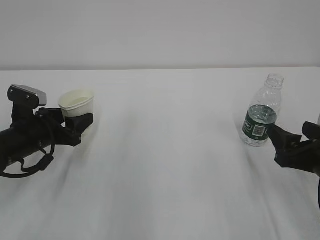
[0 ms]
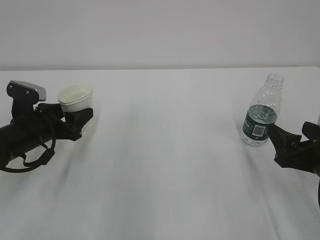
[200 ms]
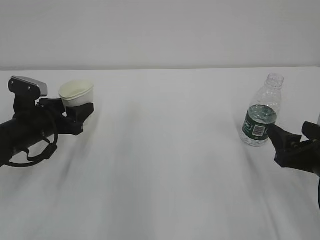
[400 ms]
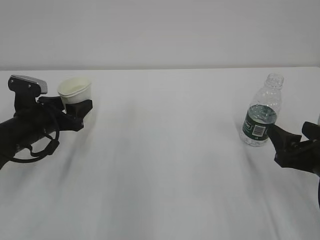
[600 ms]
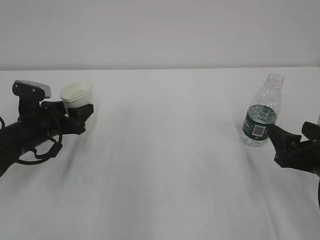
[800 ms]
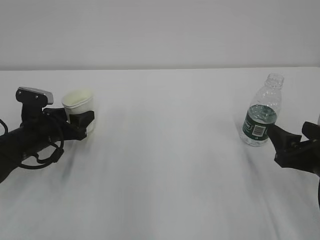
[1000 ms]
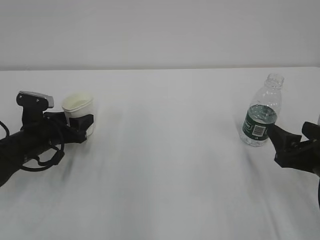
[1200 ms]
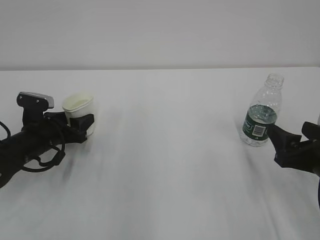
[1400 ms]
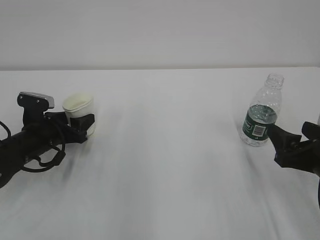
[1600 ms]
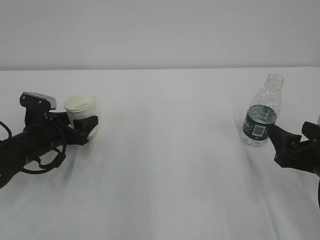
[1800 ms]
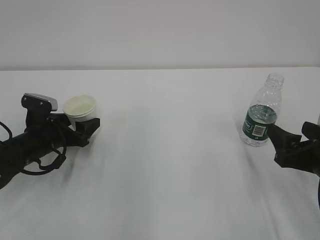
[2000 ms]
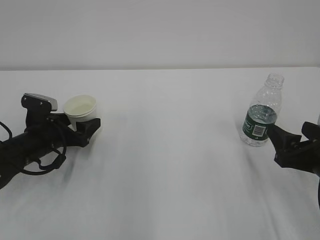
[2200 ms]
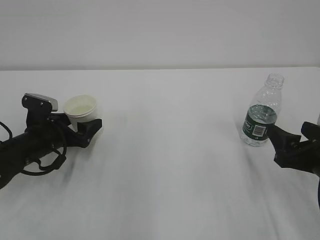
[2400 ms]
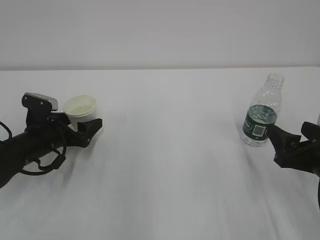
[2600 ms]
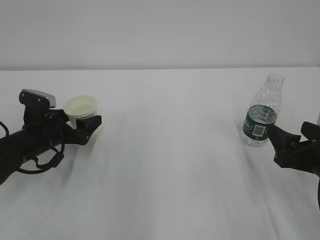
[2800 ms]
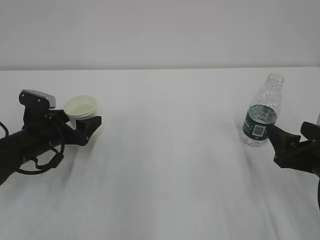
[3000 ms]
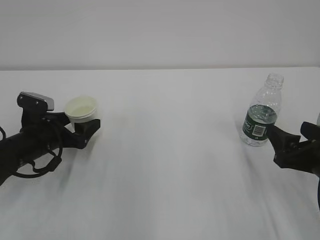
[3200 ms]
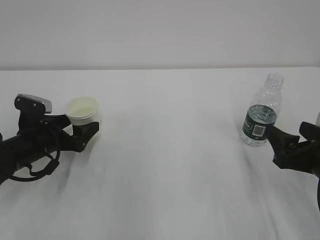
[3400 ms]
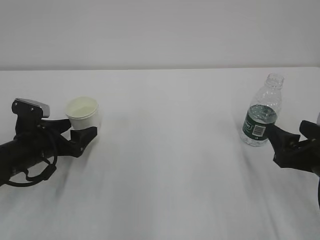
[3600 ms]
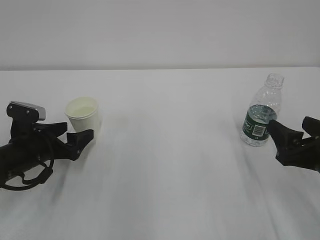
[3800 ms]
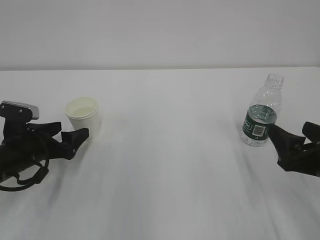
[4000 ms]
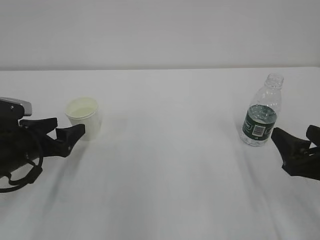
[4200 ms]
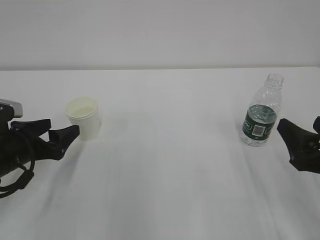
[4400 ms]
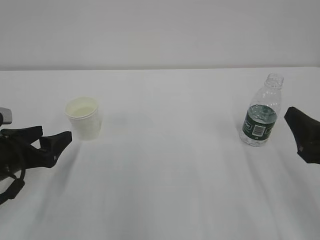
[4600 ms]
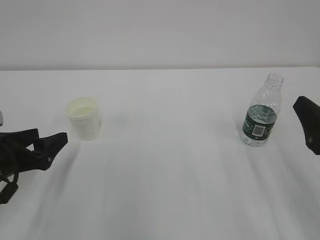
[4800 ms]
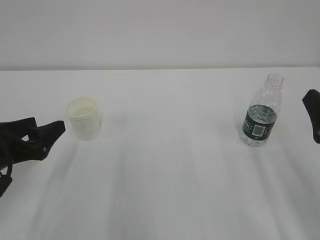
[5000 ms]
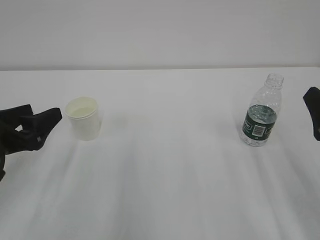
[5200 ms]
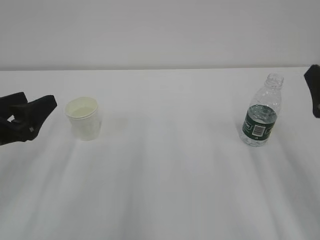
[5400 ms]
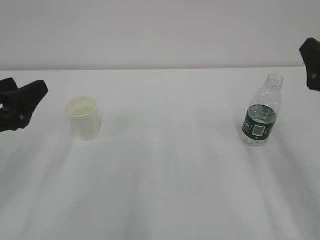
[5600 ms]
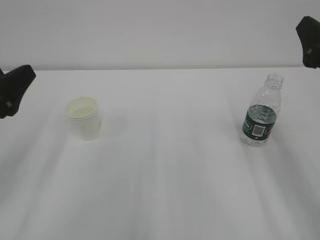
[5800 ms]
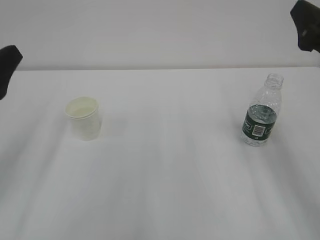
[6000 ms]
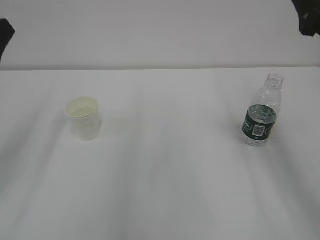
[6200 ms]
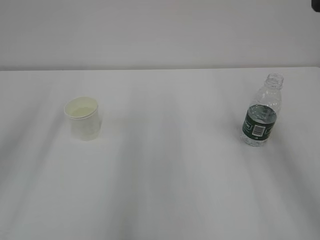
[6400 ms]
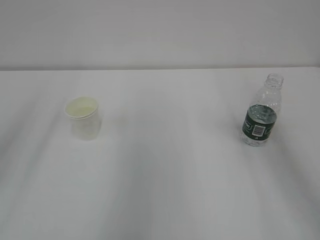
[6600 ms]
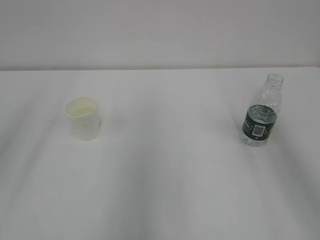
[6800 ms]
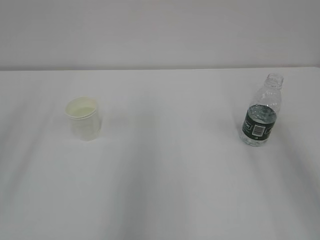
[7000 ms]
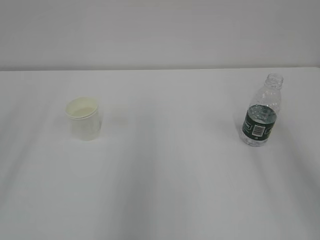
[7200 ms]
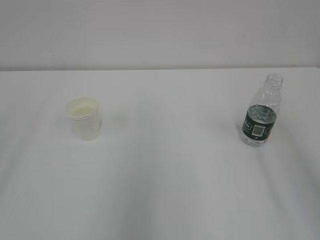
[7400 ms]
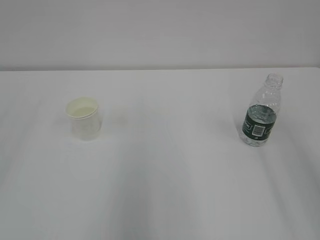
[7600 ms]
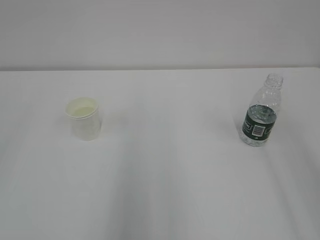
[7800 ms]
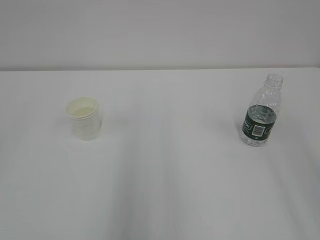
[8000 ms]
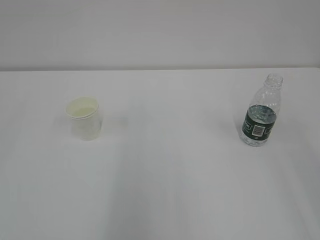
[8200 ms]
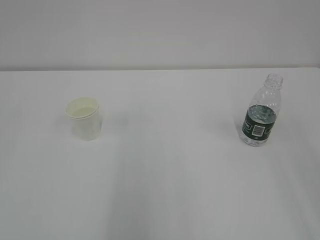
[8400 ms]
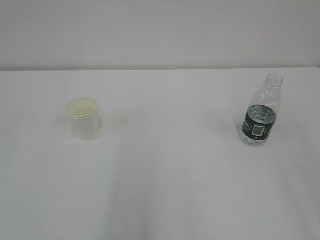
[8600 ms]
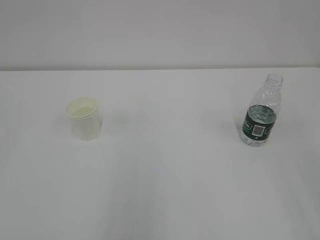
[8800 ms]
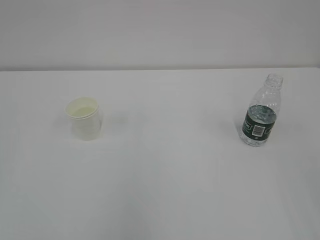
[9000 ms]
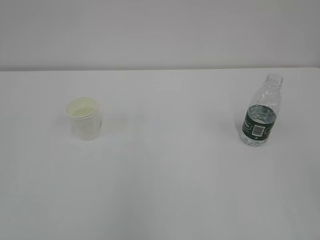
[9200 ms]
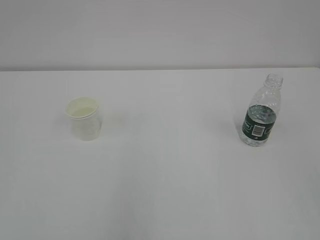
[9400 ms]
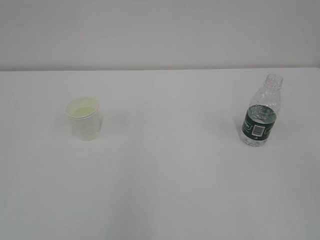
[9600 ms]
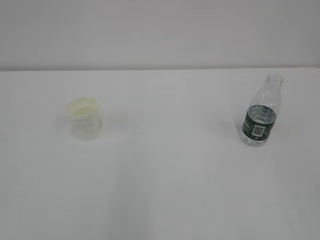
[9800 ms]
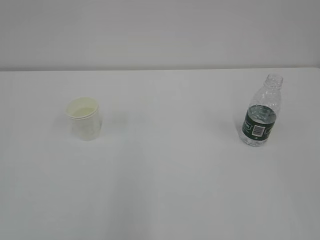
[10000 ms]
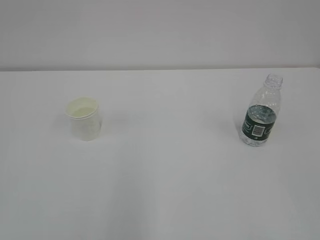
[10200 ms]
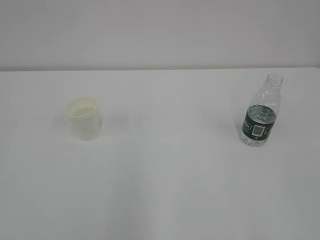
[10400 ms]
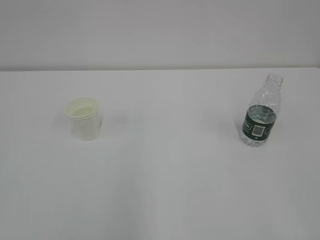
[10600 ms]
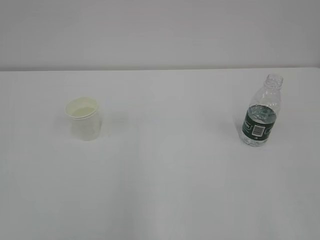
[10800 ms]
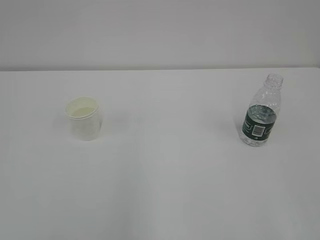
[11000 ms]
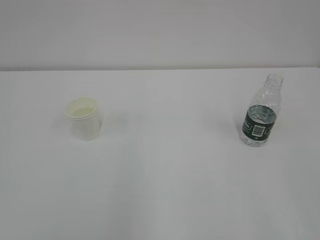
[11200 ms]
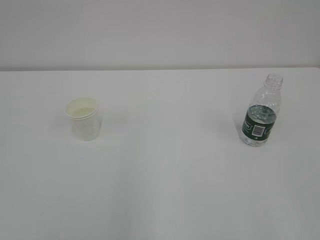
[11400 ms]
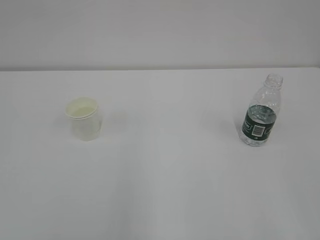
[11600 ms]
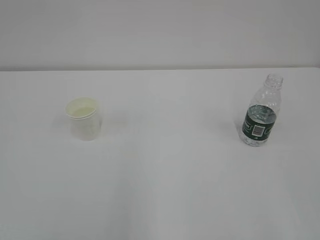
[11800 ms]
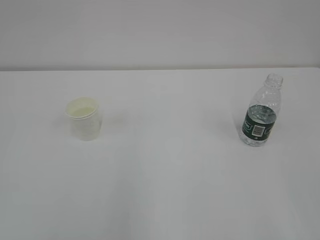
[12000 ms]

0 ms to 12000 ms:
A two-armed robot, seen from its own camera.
0 ms to 1600 ms: There are only small adjustments of the grippers.
1600 ms to 3000 ms: The left gripper opens.
3000 ms to 4400 ms: The left gripper goes about 5 cm backward.
4400 ms to 6000 ms: The right gripper is displaced upward and forward by some 15 cm; the left gripper heads upward and backward, covering approximately 15 cm.
6000 ms to 7600 ms: Both grippers travel together backward and upward, about 20 cm.

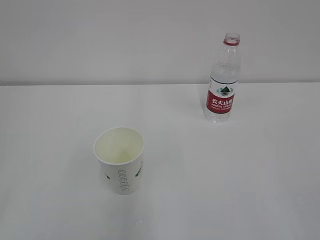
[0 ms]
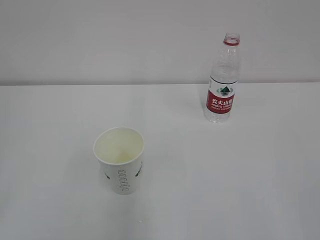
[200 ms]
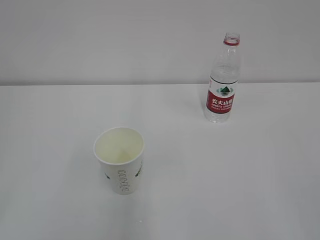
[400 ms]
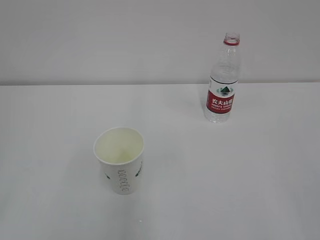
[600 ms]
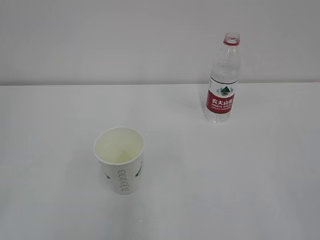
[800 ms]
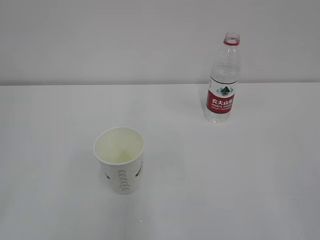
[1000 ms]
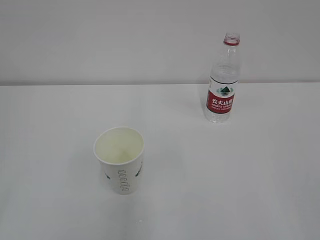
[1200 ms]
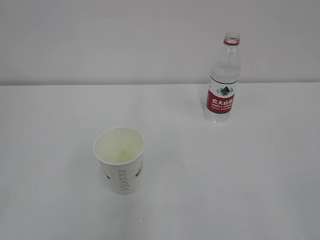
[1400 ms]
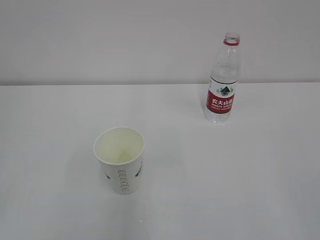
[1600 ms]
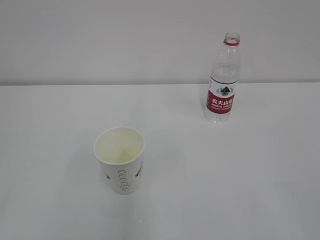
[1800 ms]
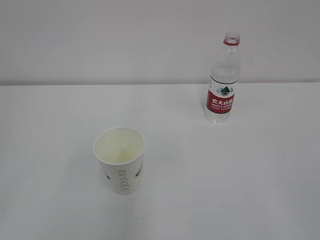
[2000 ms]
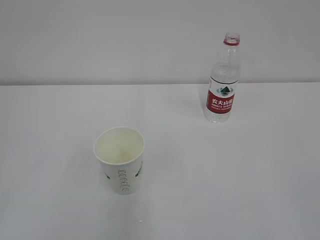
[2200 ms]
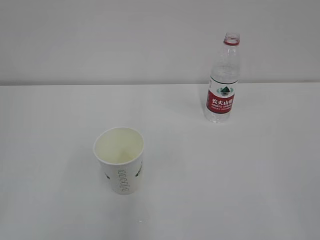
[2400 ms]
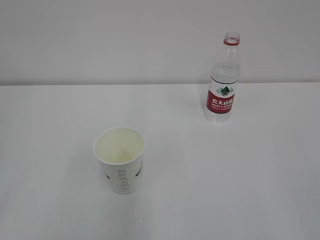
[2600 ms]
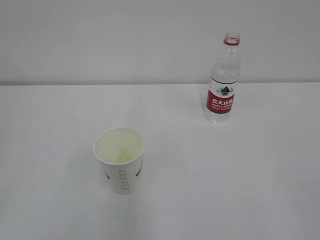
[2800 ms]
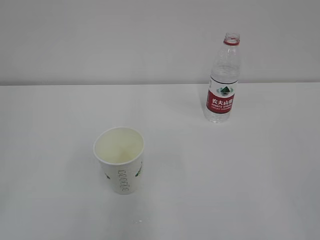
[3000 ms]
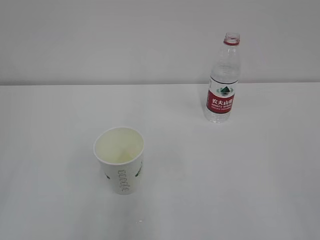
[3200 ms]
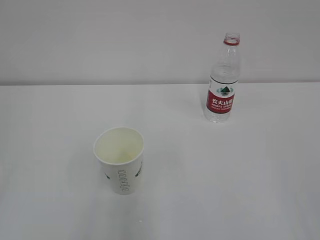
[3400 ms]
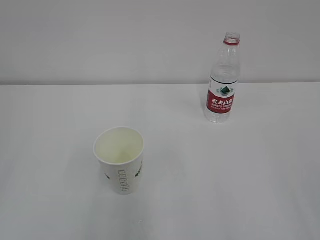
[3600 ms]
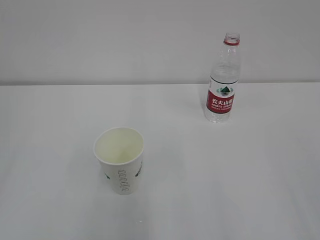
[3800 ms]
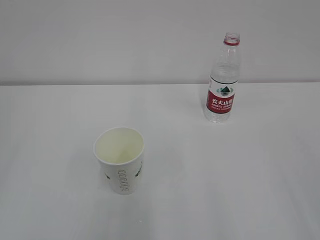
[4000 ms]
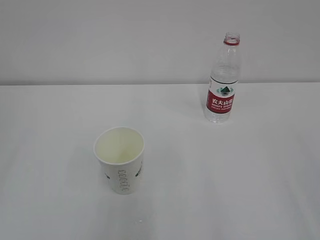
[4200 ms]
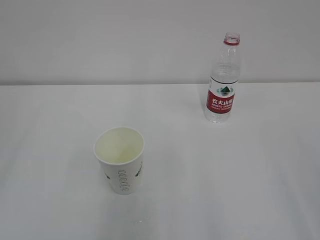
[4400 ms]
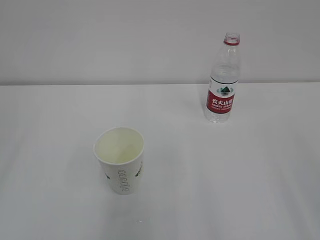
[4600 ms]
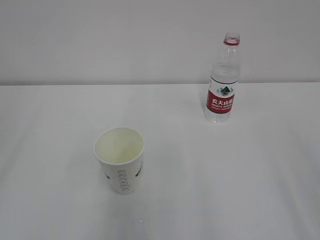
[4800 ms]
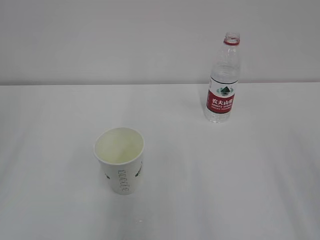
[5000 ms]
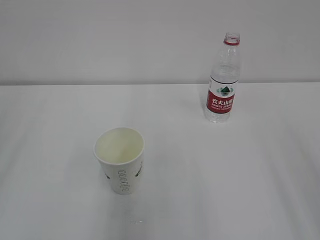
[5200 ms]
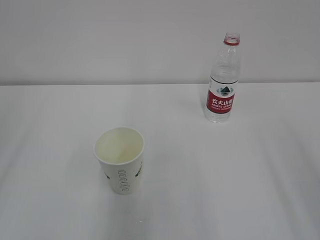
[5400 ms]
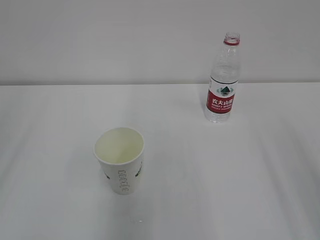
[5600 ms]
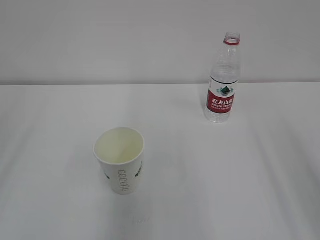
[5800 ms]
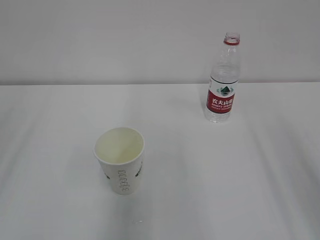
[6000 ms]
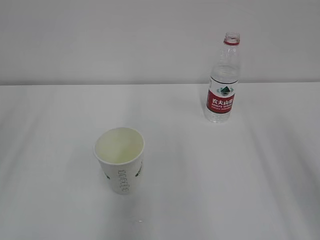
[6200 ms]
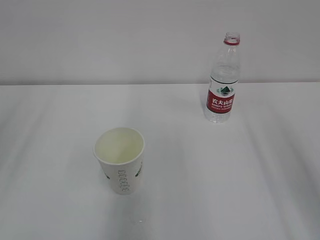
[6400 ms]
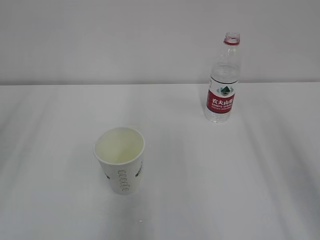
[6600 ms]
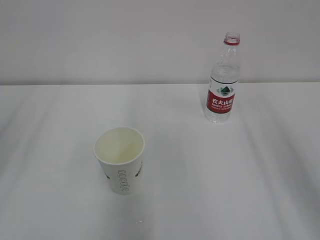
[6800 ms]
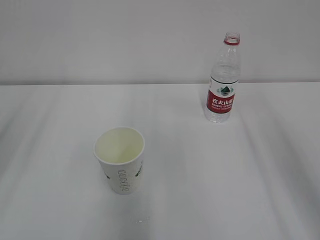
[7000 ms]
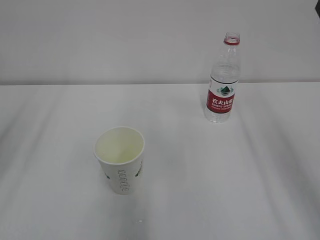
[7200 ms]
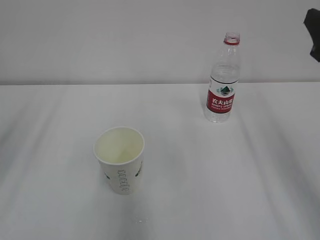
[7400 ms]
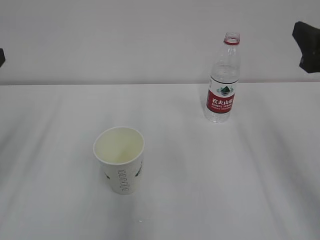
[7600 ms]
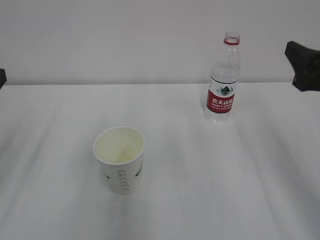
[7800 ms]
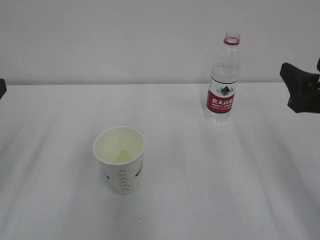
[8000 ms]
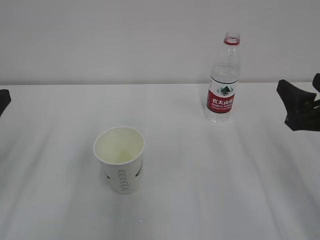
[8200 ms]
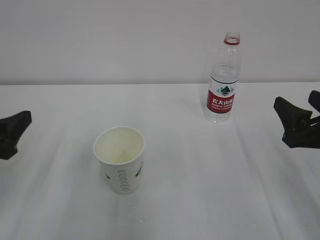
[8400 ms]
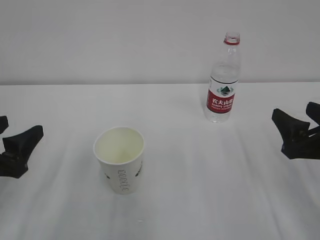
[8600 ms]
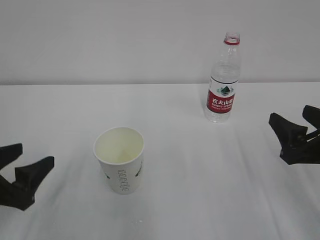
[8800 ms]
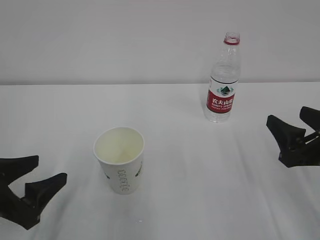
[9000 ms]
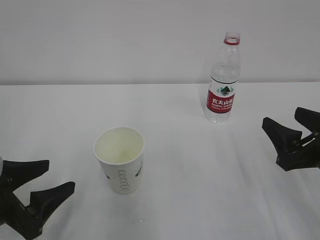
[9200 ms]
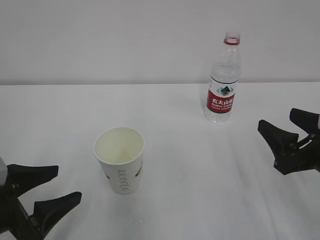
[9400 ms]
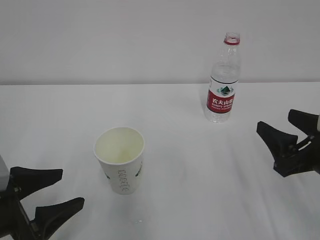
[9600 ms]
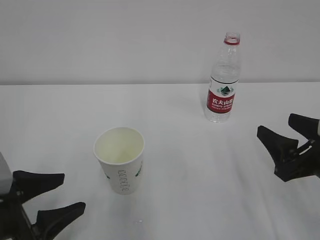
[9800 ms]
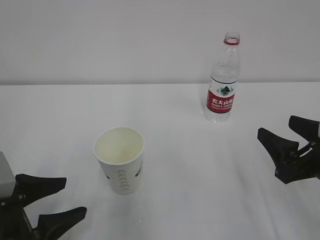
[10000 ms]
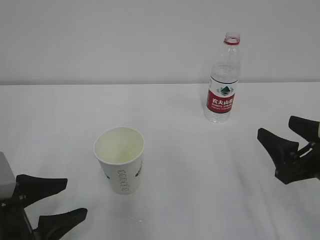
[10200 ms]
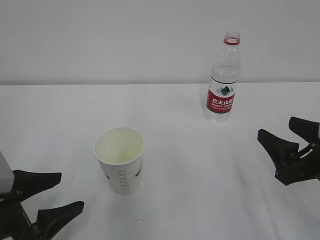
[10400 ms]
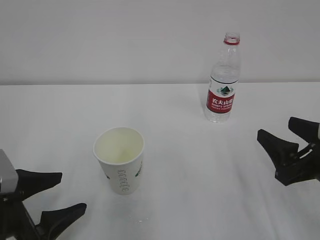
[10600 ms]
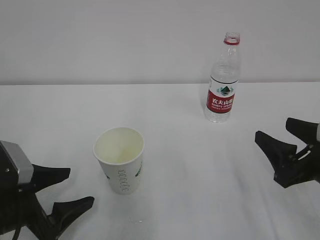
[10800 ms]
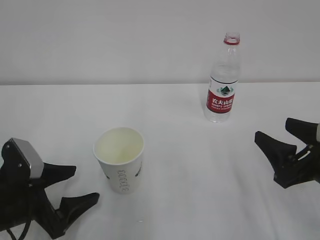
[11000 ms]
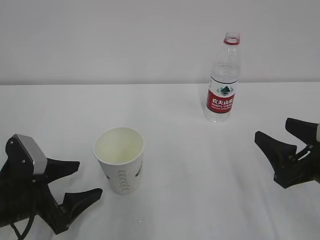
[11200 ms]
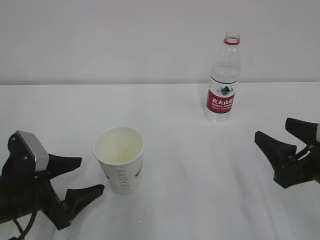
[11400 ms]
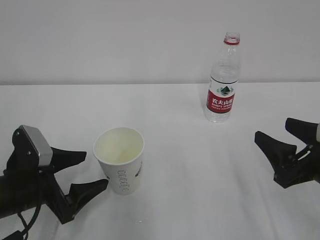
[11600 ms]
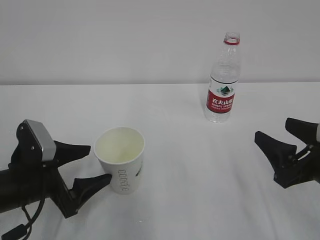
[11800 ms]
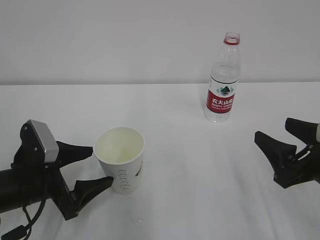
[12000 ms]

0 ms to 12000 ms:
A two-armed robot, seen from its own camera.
6000 ms to 7600 ms: The right gripper travels forward and downward by some 15 cm.
7600 ms to 9000 ms: The left gripper shifts some 15 cm downward and backward, while the right gripper shifts about 10 cm downward.
9000 ms to 10400 ms: The grippers make only small movements.
10400 ms to 12000 ms: The left gripper is displaced forward by approximately 5 cm, and opens up.
